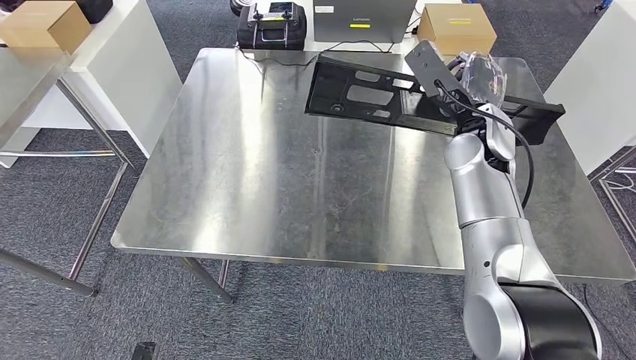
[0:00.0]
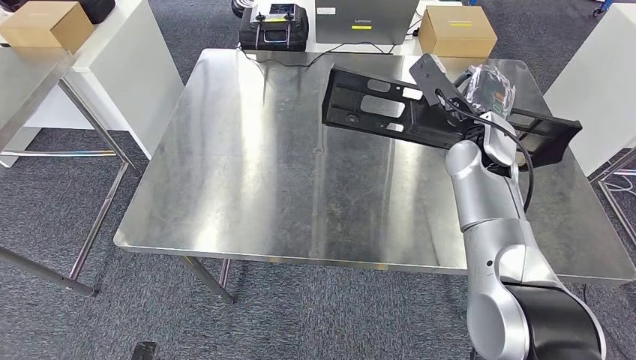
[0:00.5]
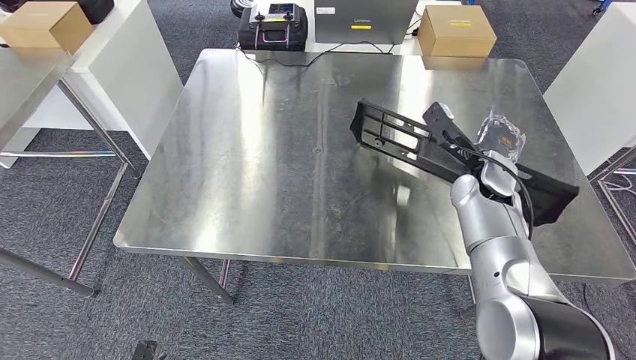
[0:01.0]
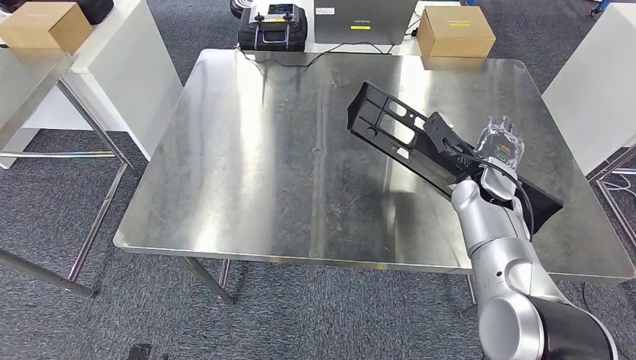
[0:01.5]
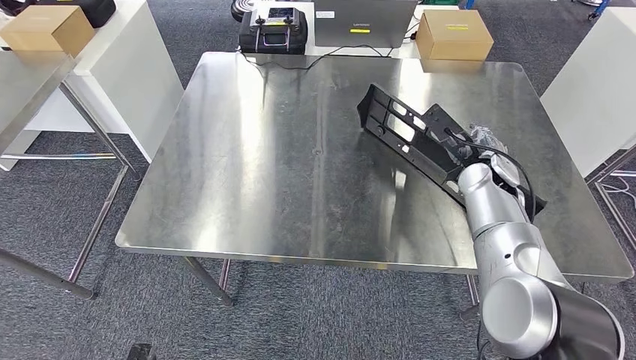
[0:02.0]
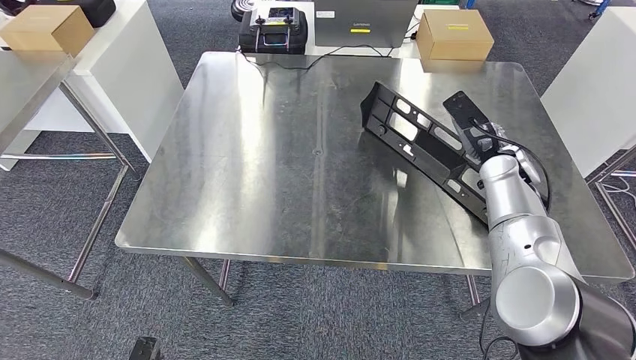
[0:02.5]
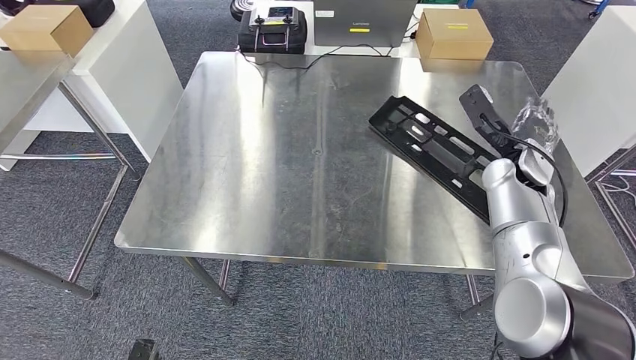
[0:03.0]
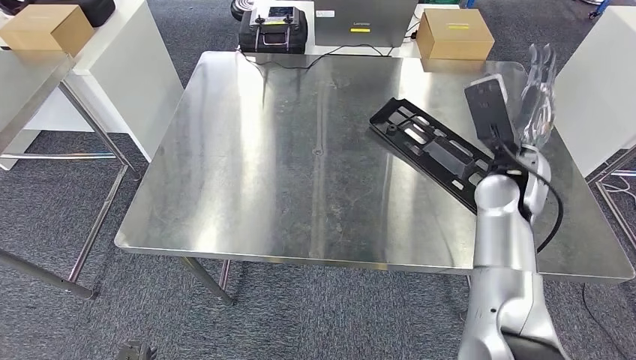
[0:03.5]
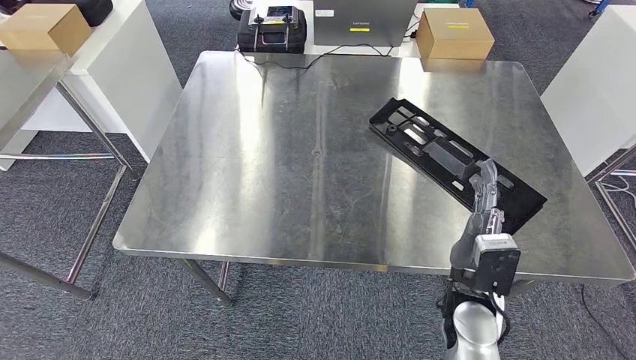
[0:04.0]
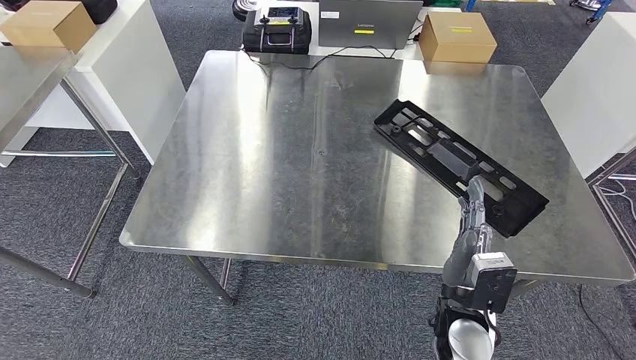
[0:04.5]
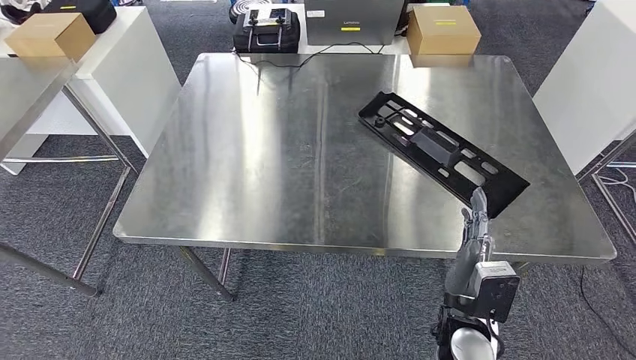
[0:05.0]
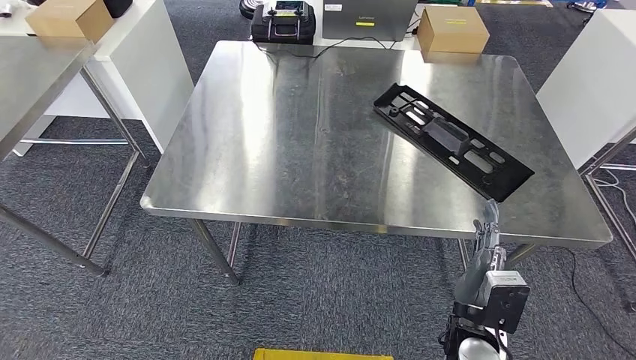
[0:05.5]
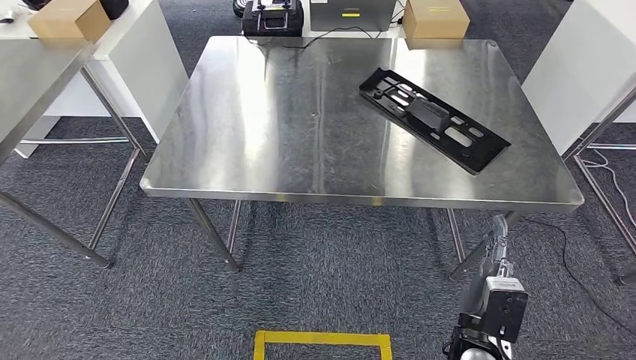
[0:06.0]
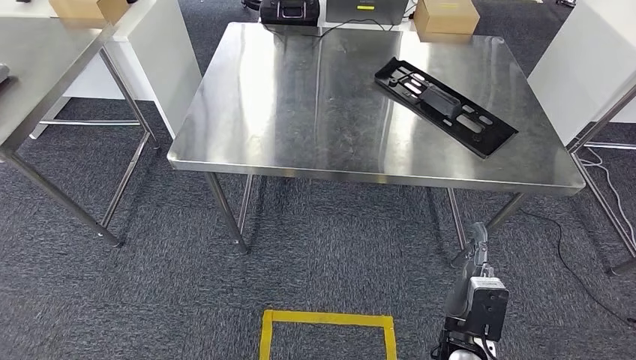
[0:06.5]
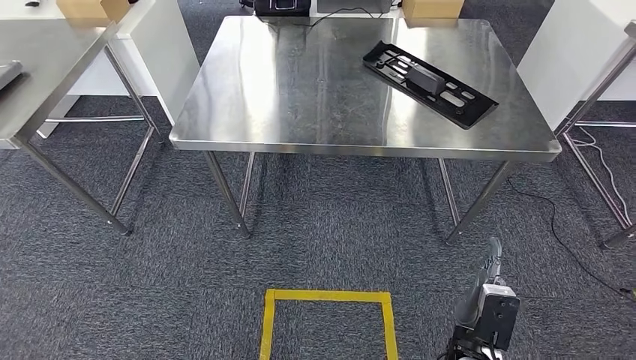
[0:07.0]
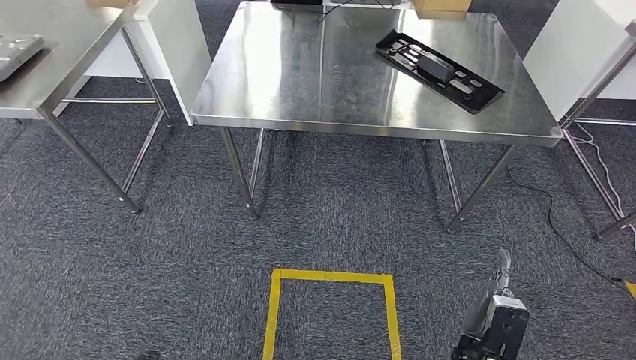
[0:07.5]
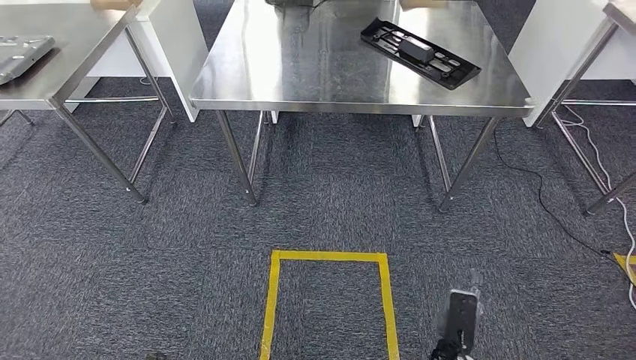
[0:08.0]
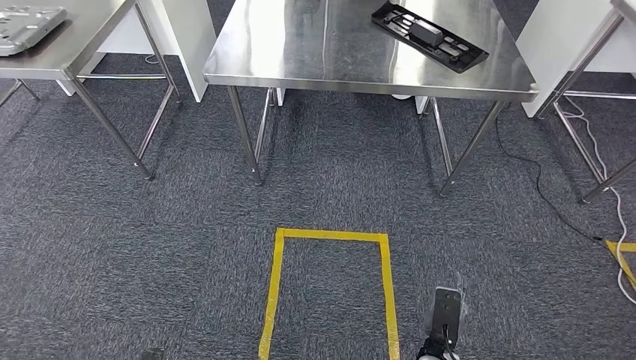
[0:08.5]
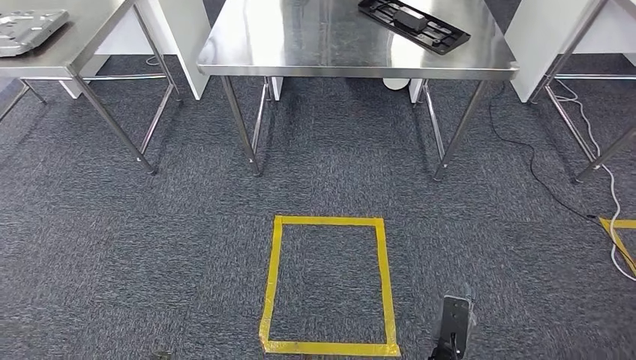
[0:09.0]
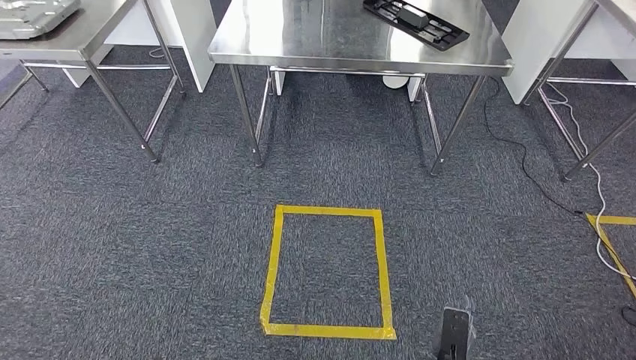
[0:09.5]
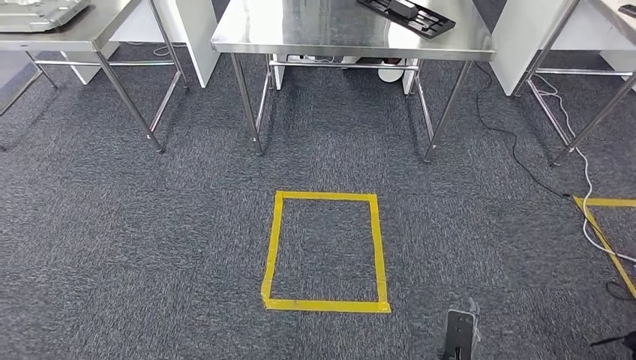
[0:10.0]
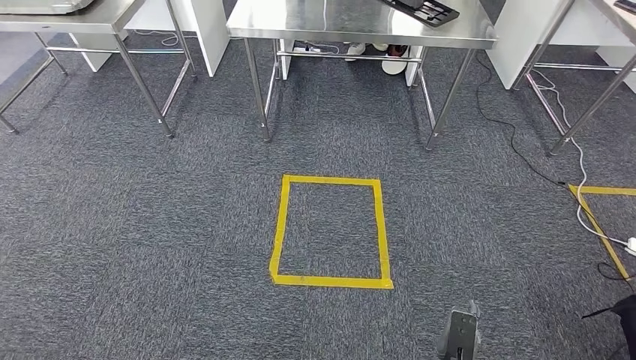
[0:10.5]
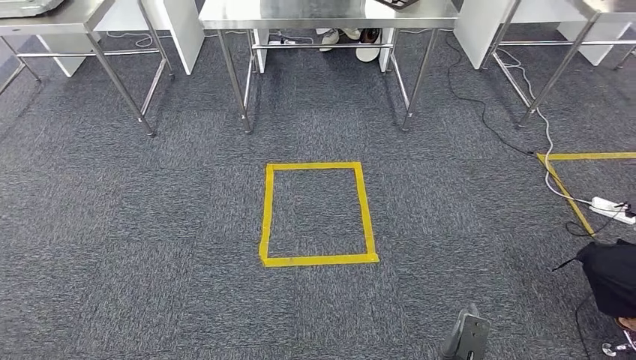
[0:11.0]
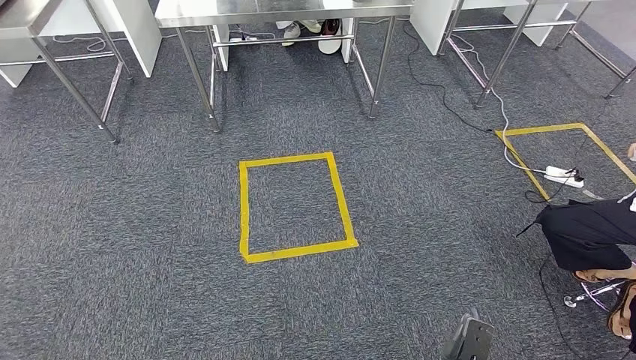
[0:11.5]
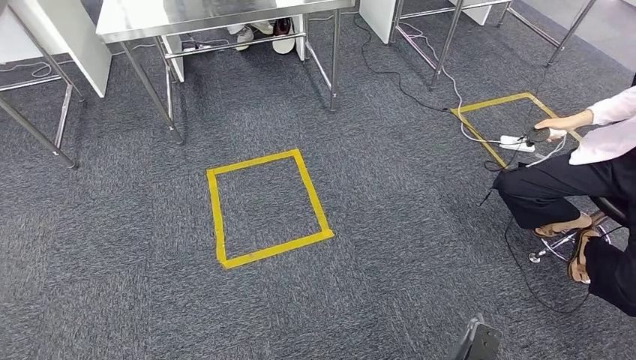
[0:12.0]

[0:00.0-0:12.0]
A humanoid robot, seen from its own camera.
Step, 0:00.0 to 0:04.5: Insert the large material into the corresponding slot on the workbench.
0:02.0 to 0:04.0: The right hand shifts some 25 cm backward and to the left.

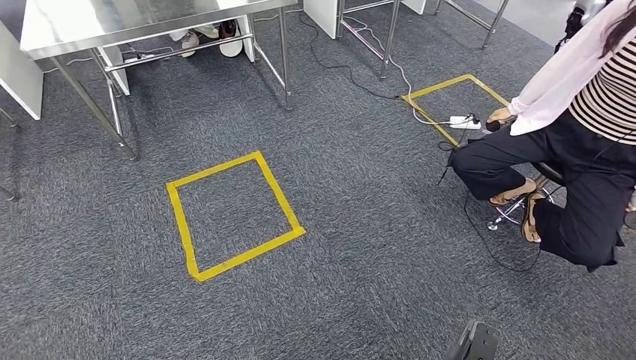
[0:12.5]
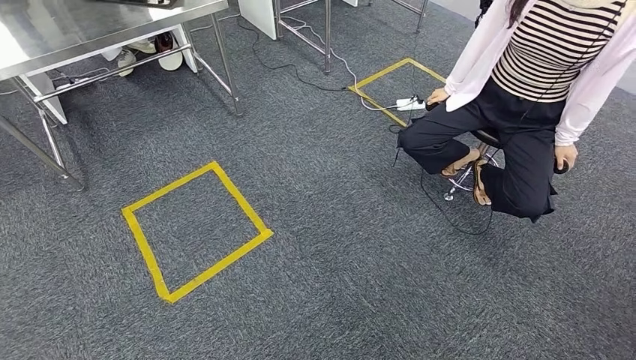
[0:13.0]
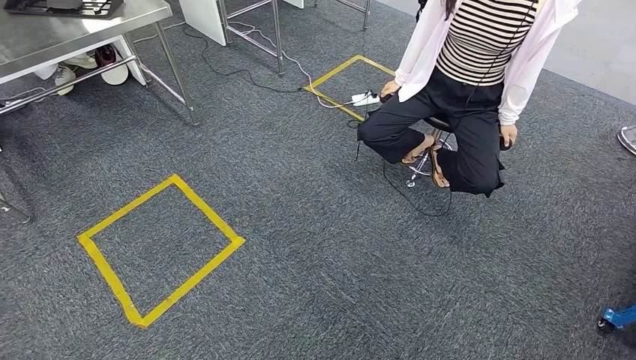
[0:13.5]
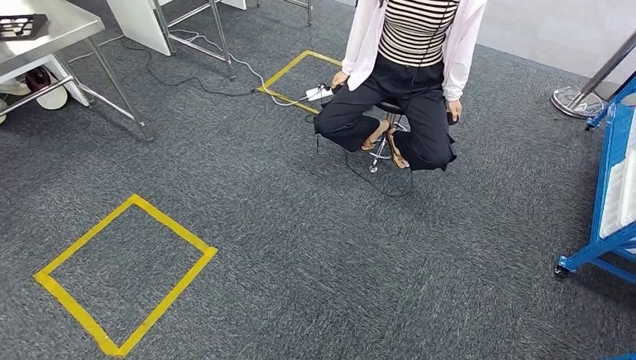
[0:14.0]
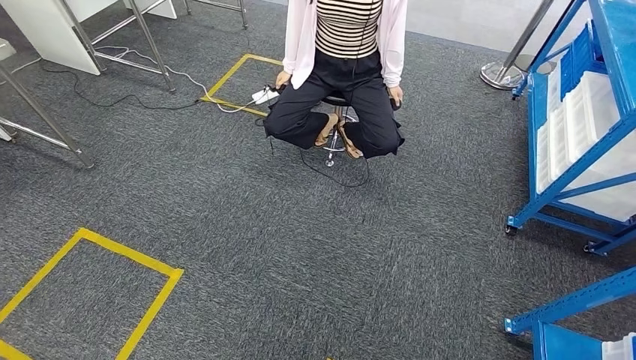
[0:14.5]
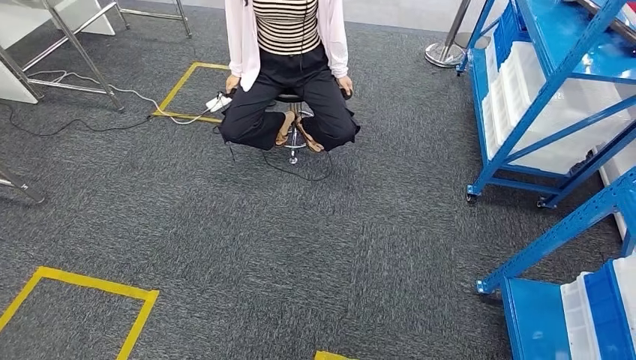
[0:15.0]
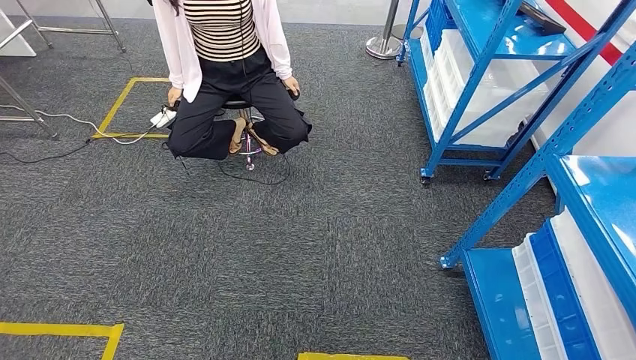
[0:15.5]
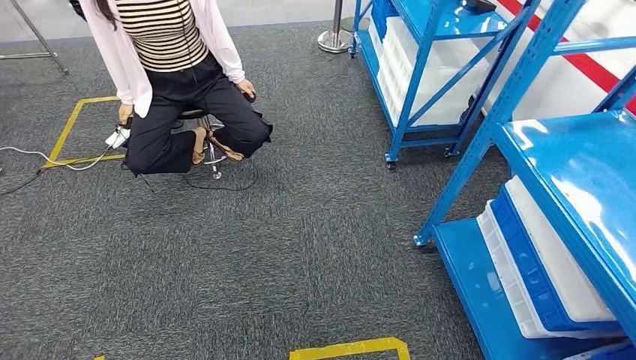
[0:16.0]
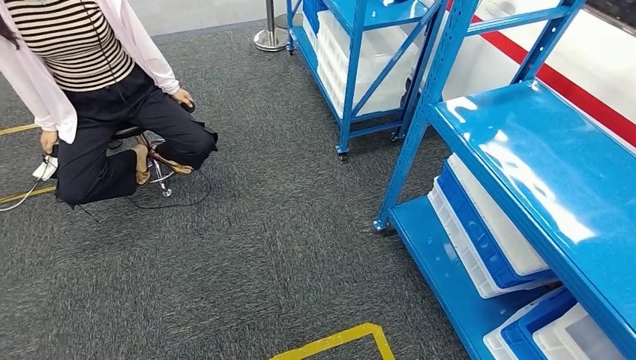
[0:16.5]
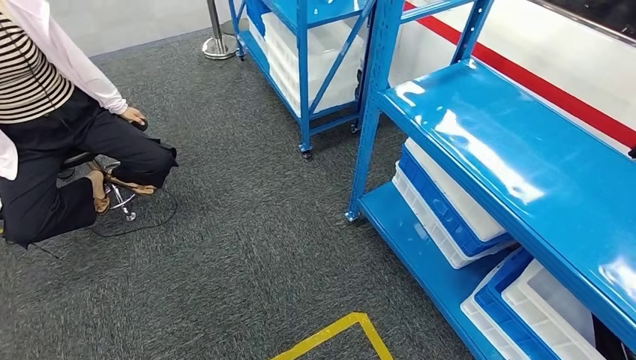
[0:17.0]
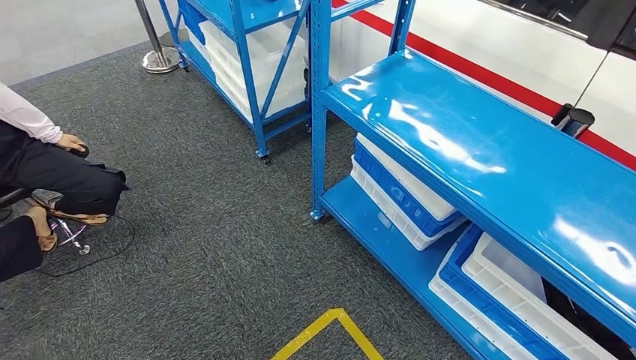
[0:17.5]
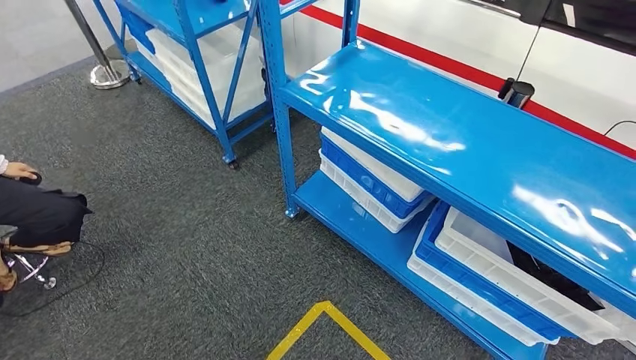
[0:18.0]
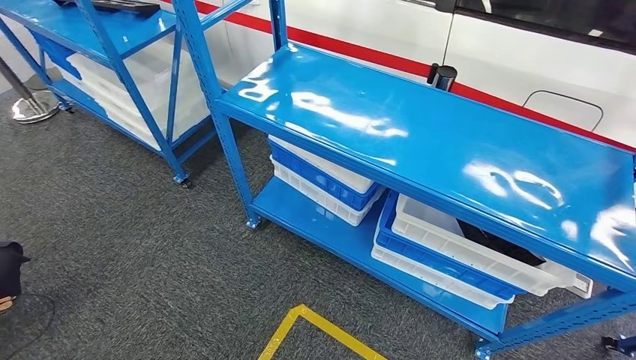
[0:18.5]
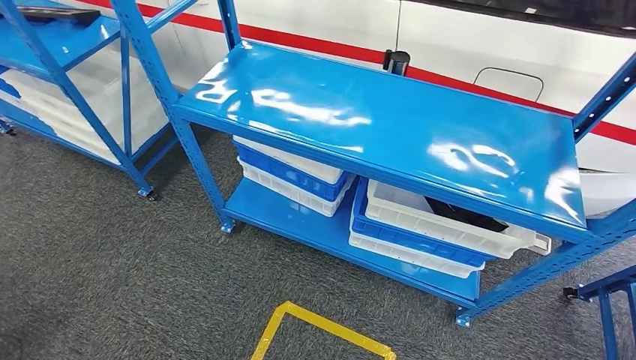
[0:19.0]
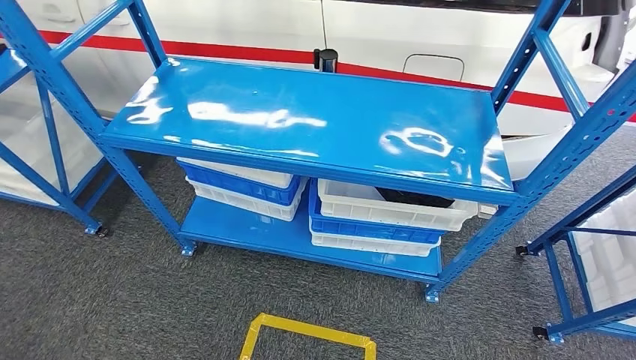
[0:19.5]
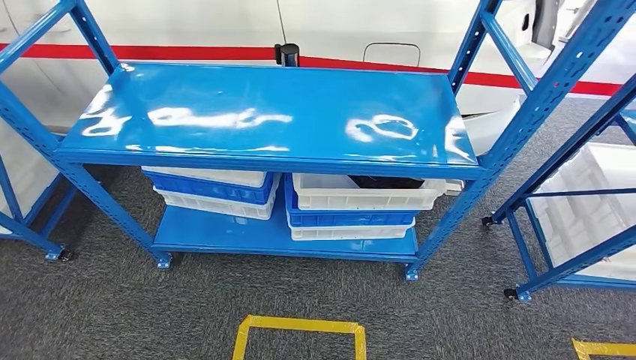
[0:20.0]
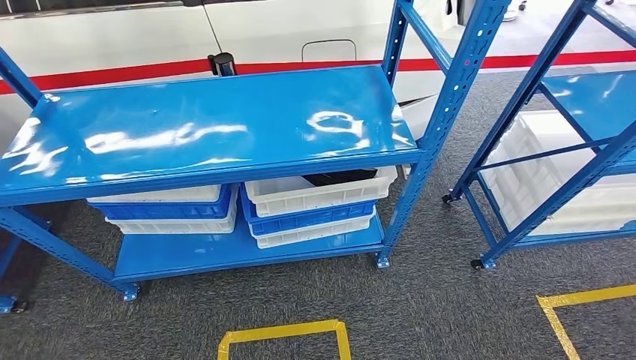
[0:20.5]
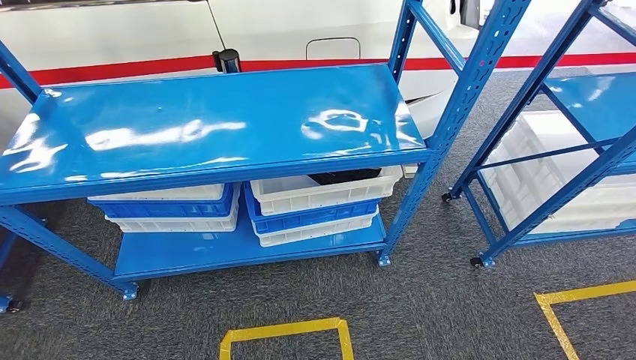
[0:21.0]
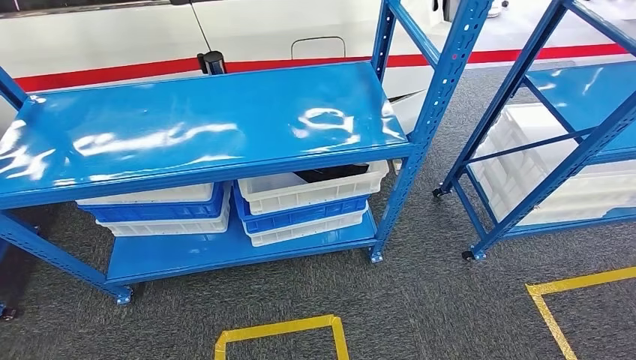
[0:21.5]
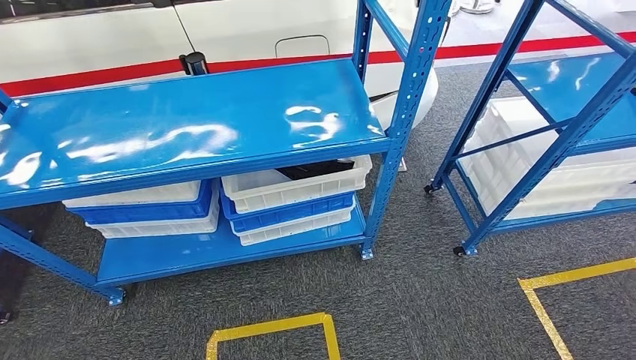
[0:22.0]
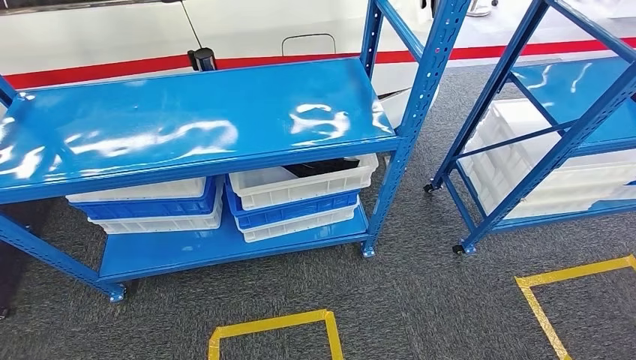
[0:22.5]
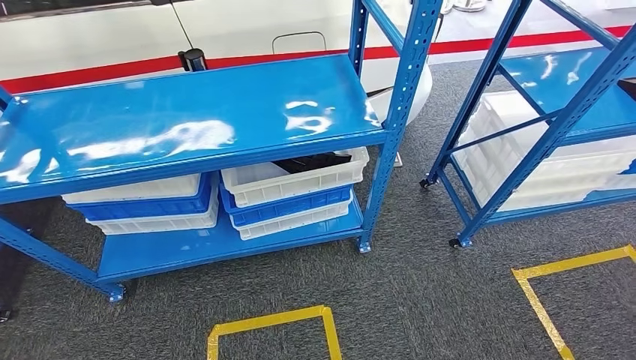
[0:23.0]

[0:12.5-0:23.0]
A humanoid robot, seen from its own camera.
Step, 0:12.5 to 0:23.0: Move to the initial position of the shelf.
